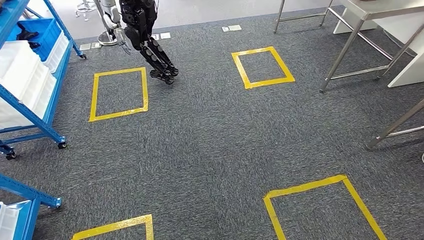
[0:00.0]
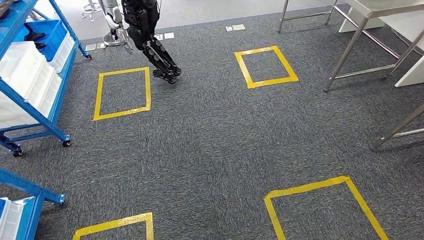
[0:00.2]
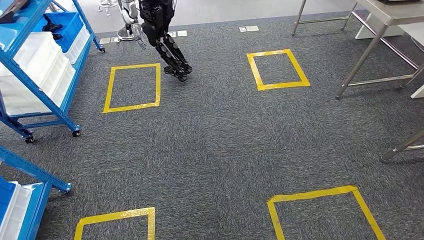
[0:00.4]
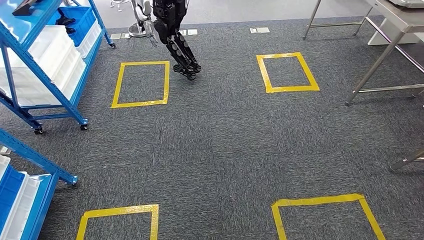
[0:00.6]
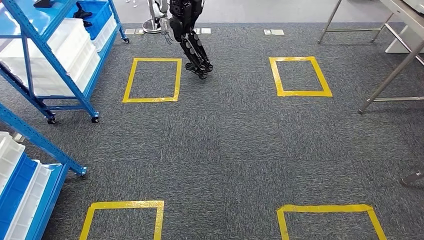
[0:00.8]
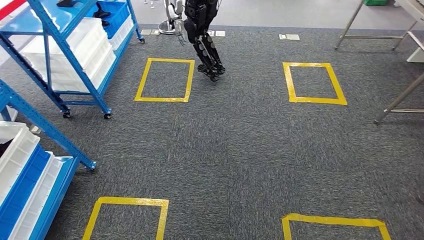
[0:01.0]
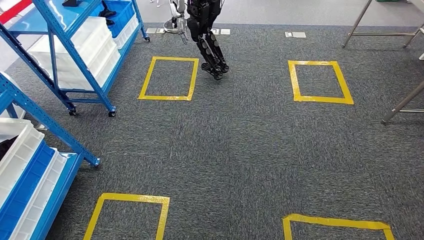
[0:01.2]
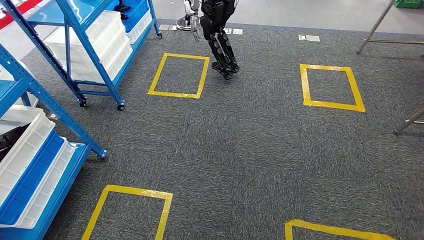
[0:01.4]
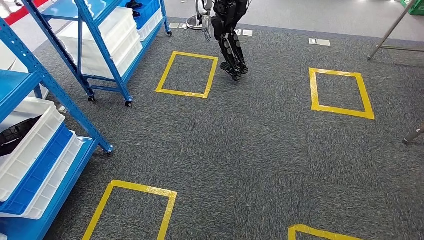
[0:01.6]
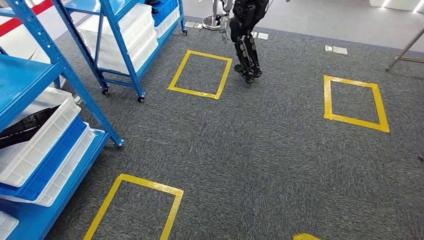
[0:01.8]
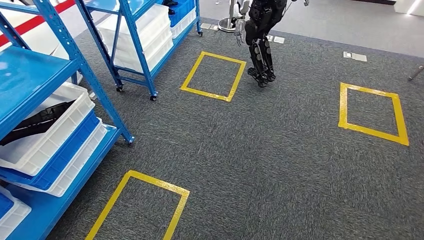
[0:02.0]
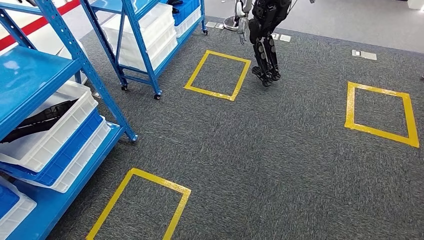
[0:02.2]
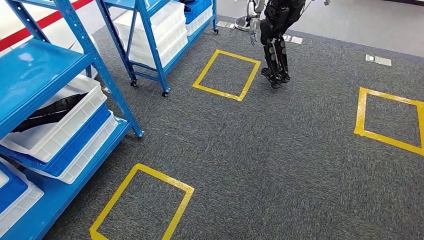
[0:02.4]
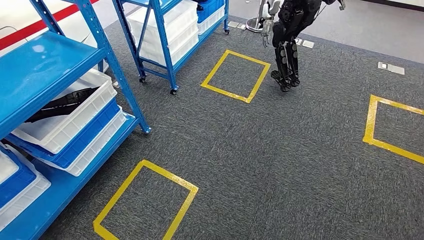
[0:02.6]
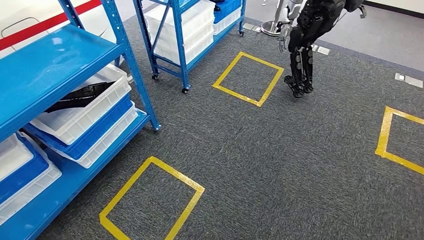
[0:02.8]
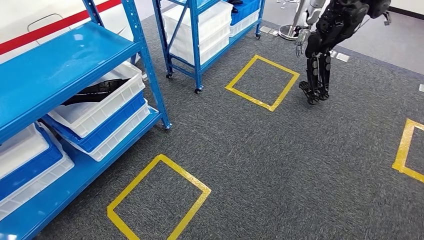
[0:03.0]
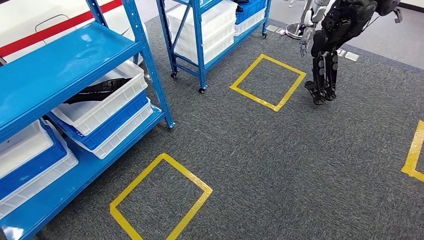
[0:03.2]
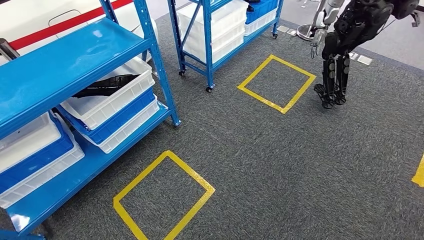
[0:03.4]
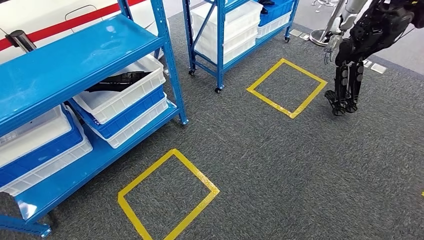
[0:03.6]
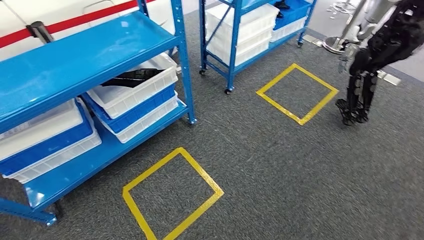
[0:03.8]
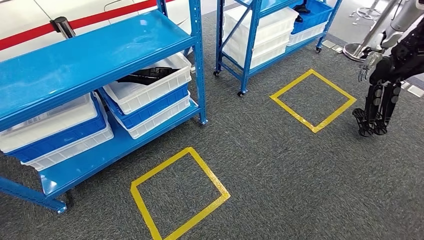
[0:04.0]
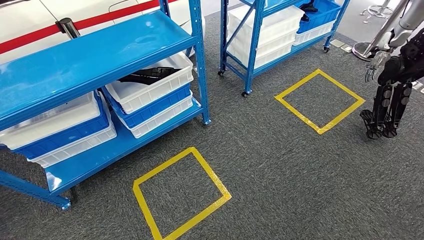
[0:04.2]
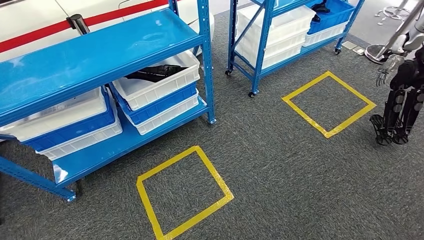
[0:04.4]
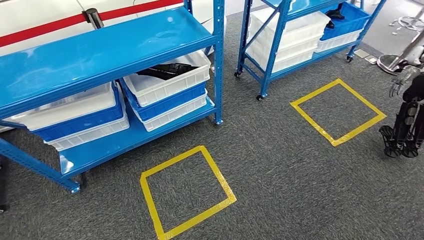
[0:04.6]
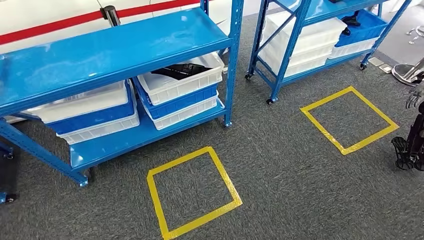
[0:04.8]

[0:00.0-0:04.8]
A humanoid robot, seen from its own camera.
Step, 0:00.0 to 0:04.6: Move to the initial position of the shelf.
